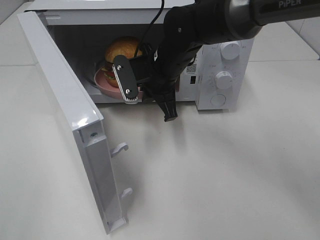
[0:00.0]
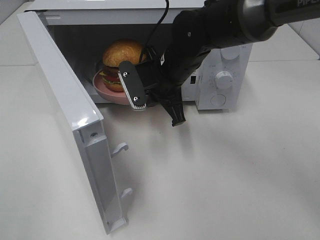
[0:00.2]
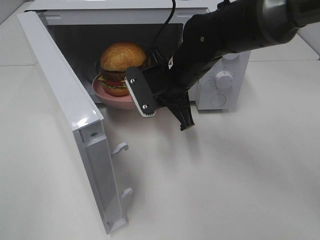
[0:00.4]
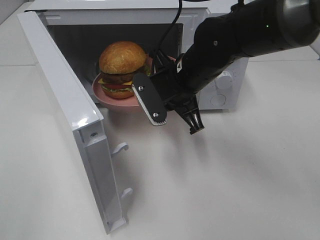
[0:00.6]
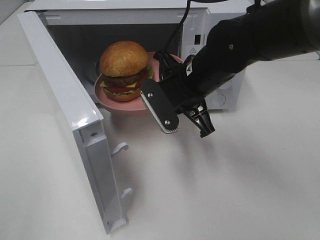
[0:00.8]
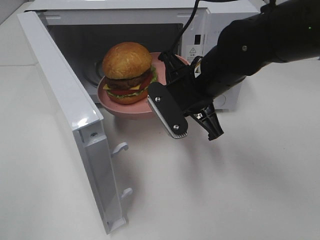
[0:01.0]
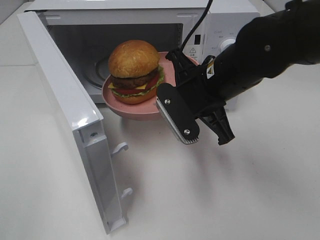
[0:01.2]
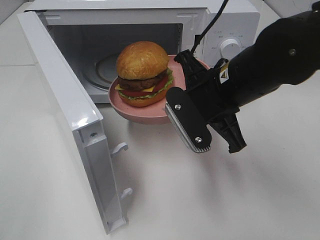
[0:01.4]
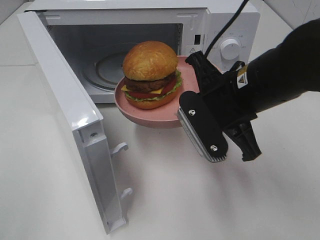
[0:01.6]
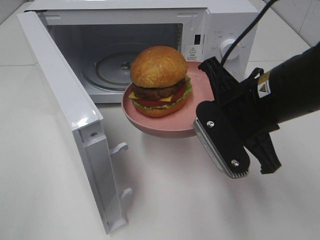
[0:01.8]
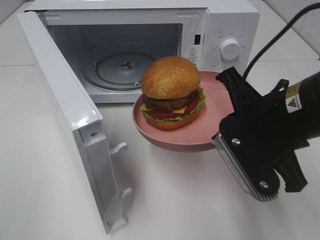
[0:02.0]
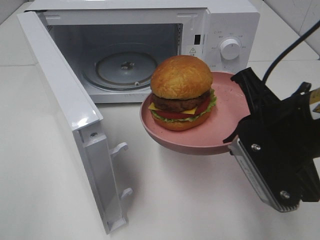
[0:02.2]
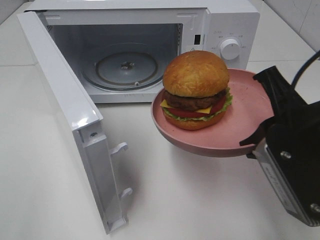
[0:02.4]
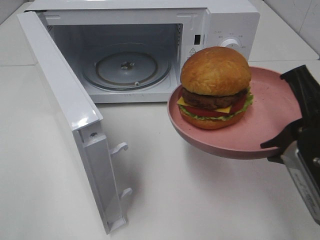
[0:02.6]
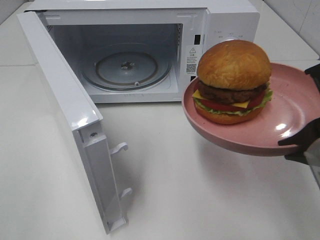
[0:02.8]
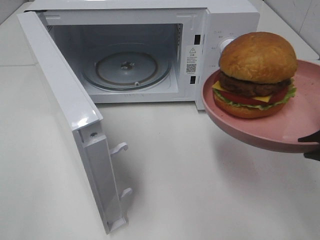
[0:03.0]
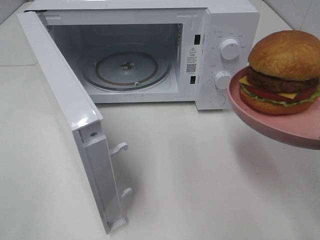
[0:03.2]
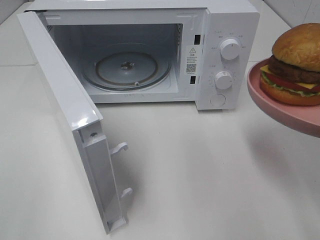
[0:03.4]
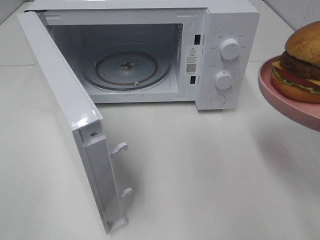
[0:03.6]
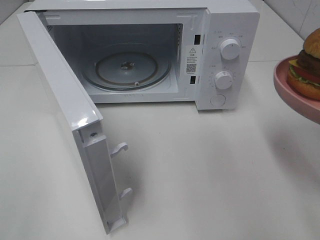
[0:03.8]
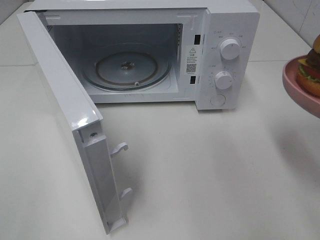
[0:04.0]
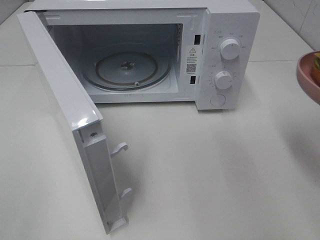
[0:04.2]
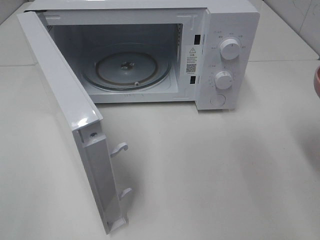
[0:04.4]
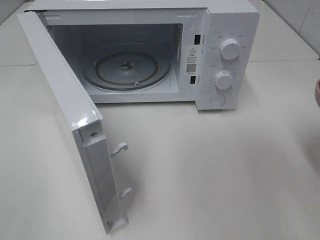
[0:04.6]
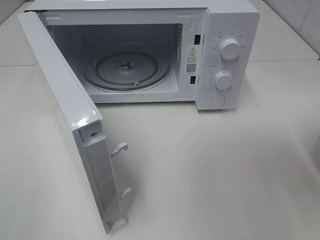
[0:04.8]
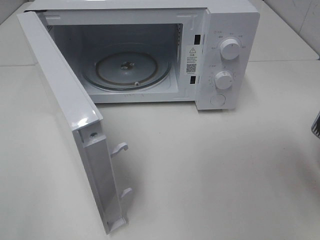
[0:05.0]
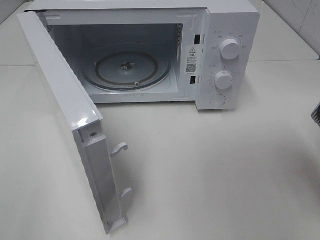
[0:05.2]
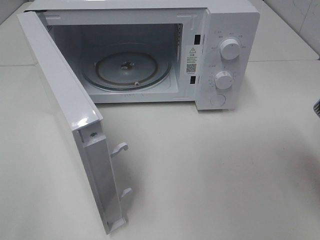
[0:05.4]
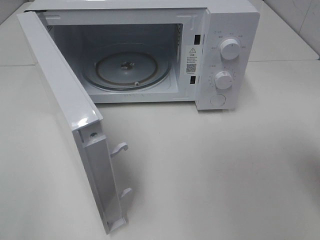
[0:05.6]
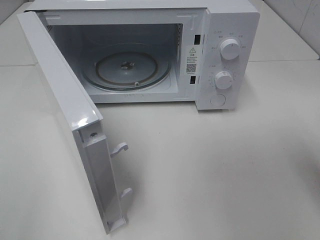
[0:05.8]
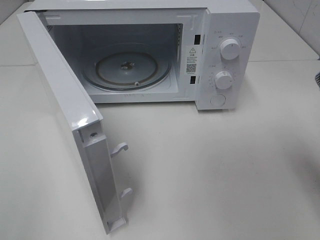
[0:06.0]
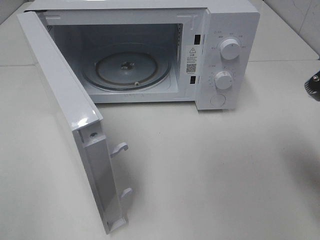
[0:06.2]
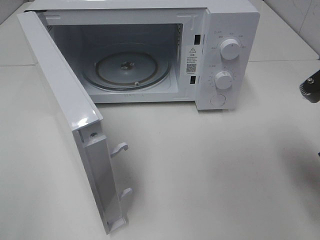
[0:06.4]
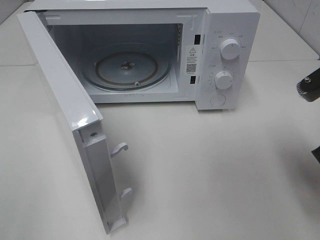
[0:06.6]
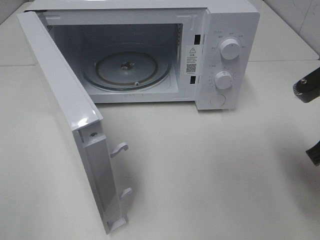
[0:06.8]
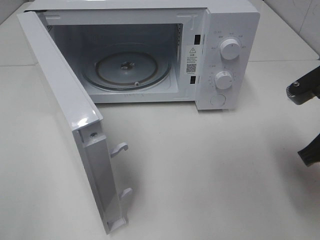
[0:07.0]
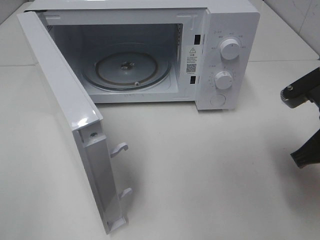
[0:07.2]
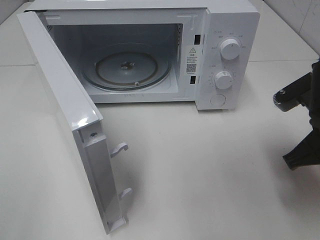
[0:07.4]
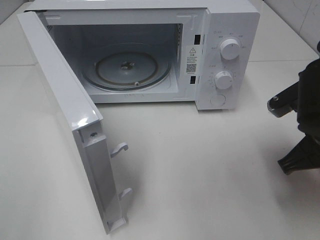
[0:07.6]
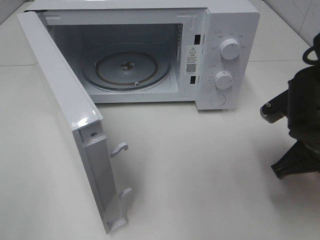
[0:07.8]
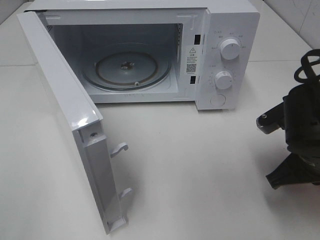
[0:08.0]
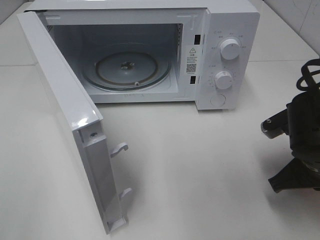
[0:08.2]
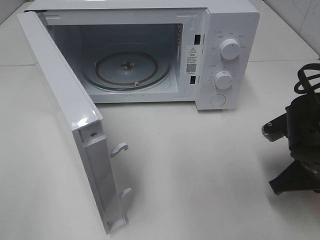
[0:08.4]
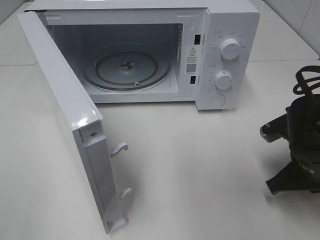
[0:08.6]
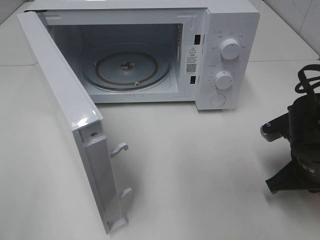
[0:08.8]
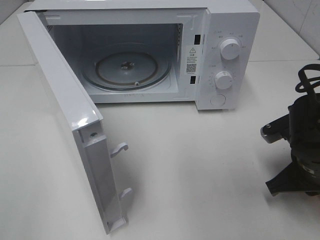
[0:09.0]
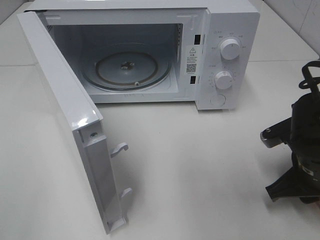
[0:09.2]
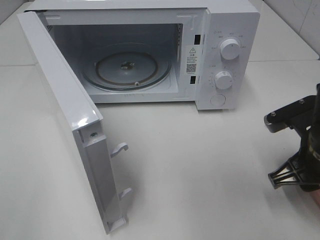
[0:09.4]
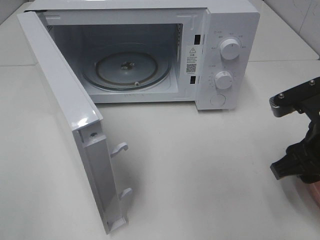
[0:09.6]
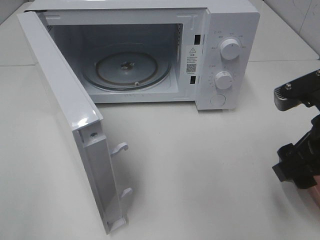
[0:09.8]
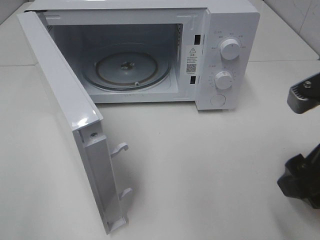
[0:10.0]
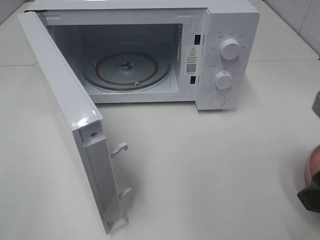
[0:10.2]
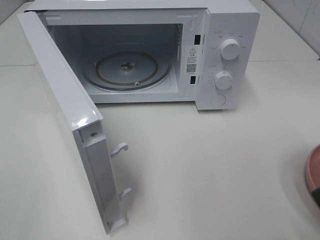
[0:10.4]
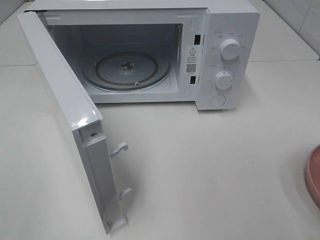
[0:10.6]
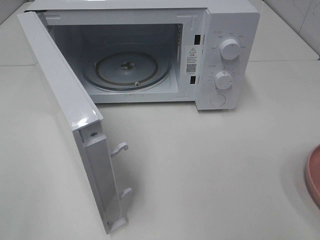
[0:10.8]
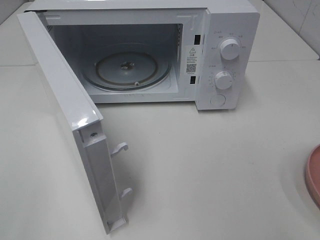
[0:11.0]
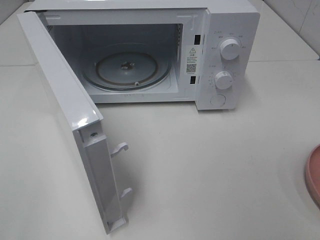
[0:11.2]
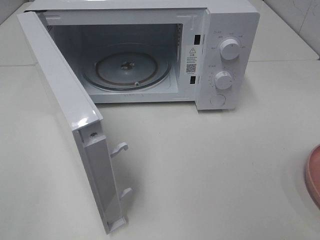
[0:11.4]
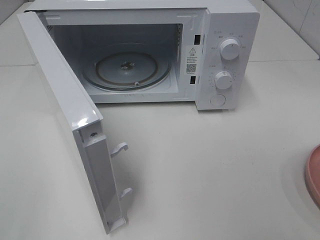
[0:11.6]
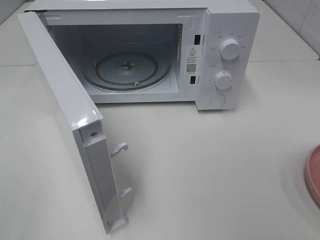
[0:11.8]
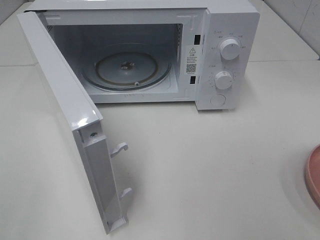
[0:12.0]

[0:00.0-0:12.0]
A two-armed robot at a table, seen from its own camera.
Task of the whole recording: Heat the burger.
Step, 0:00.0 to 0:09.0: Right hand: place the plate on the table.
0:00.0 to 0:01.6: The right gripper shifts roughly 15 cm backward and to the right.
0:01.6 to 0:03.0: The right gripper goes approximately 15 cm backward, to the right and upward.
0:06.0 to 0:07.6: The right gripper moves downward, about 10 cm.
0:07.6 to 0:09.0: The right gripper goes roughly 5 cm downward.
0:09.0 to 0:10.4: The right gripper is displaced upward and backward by approximately 20 cm, and opens up.

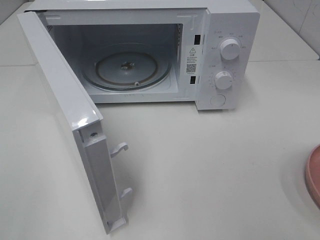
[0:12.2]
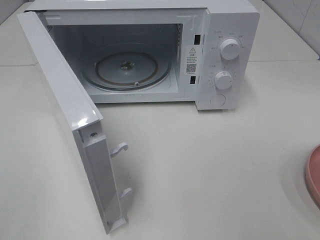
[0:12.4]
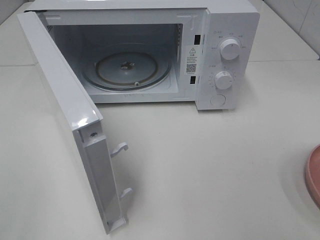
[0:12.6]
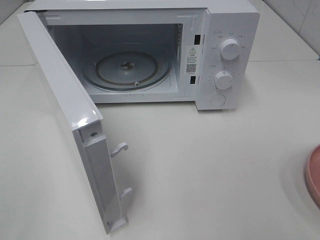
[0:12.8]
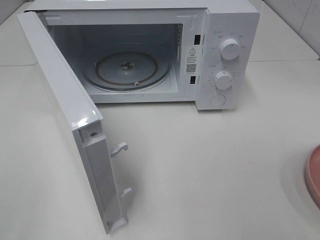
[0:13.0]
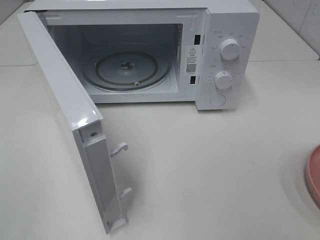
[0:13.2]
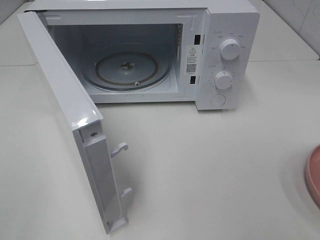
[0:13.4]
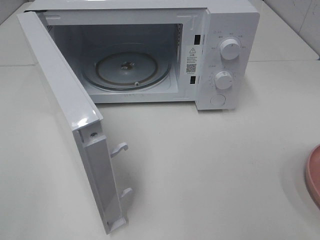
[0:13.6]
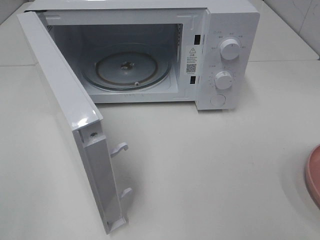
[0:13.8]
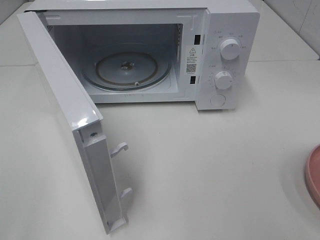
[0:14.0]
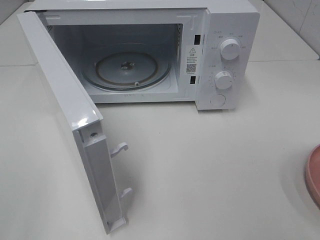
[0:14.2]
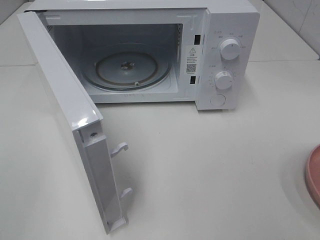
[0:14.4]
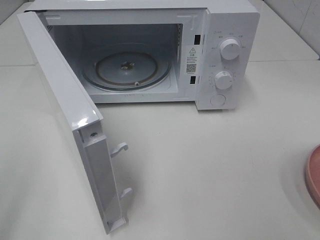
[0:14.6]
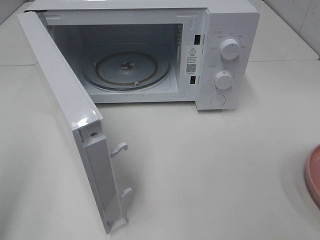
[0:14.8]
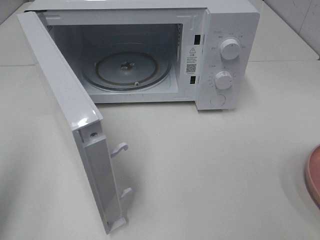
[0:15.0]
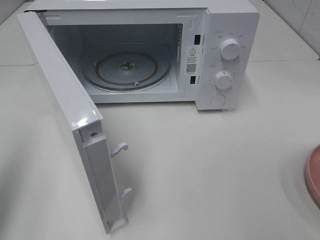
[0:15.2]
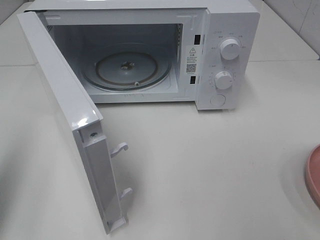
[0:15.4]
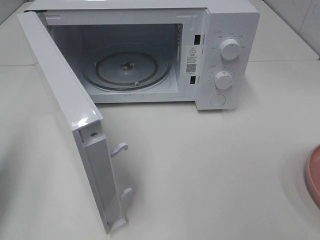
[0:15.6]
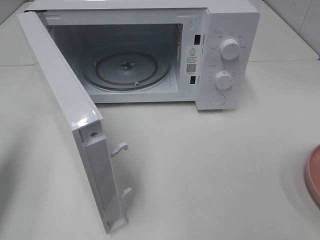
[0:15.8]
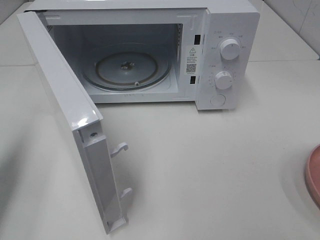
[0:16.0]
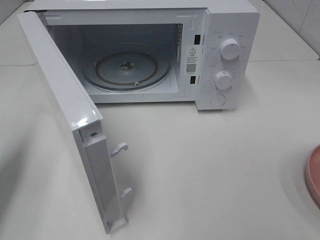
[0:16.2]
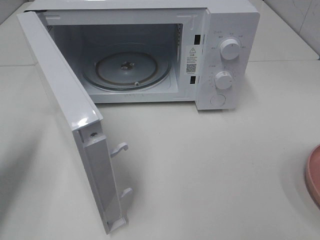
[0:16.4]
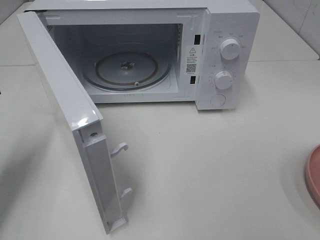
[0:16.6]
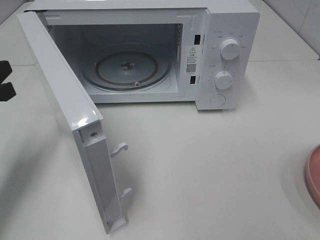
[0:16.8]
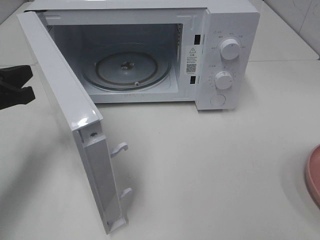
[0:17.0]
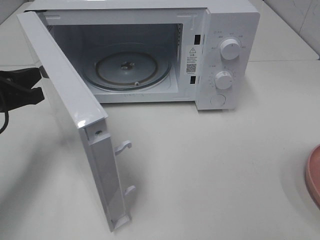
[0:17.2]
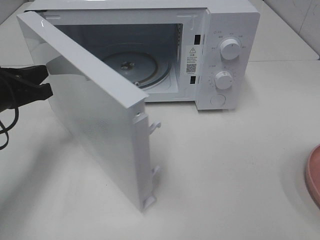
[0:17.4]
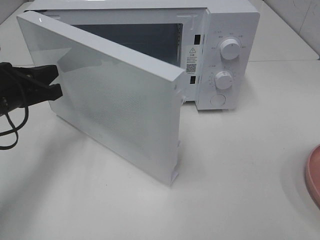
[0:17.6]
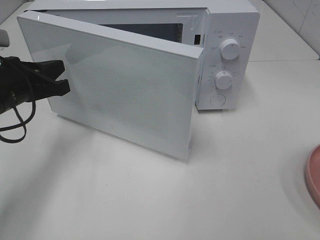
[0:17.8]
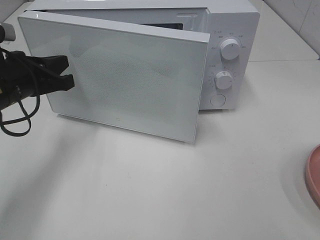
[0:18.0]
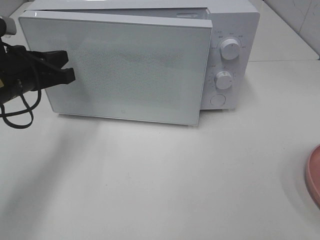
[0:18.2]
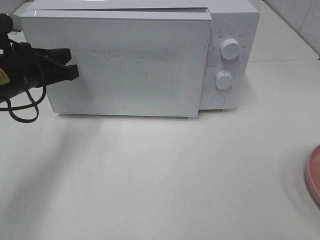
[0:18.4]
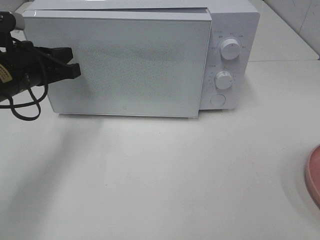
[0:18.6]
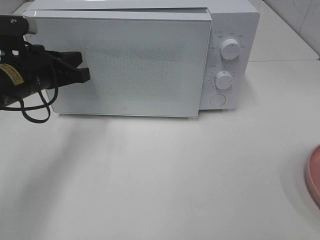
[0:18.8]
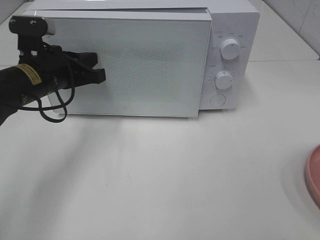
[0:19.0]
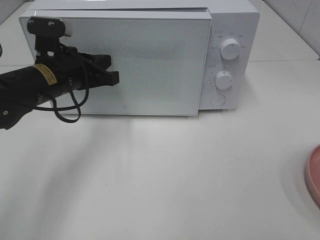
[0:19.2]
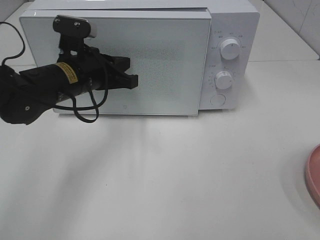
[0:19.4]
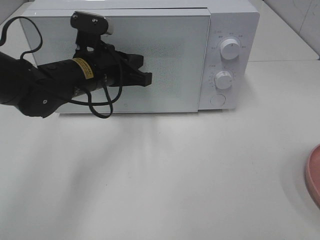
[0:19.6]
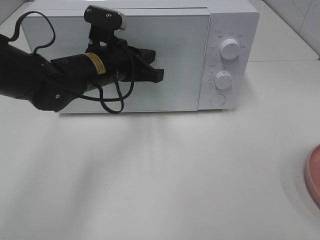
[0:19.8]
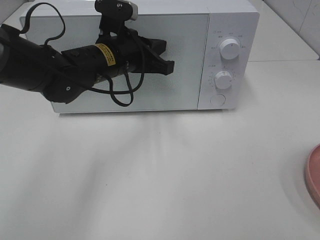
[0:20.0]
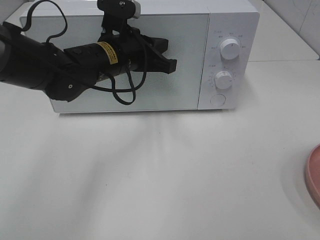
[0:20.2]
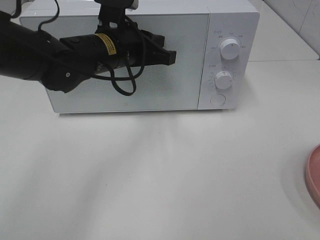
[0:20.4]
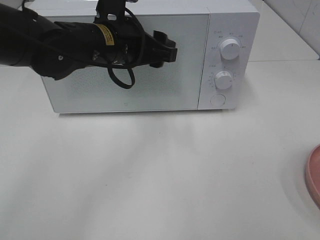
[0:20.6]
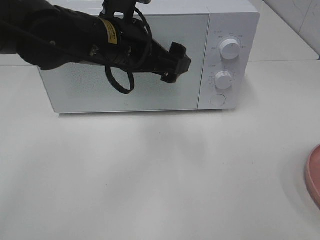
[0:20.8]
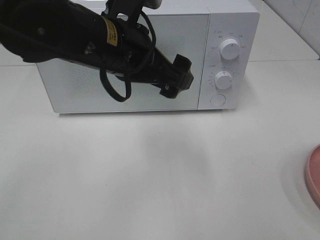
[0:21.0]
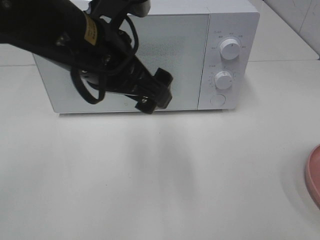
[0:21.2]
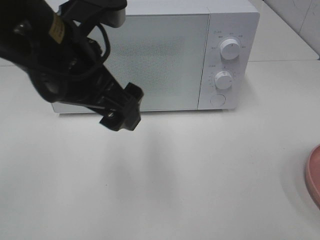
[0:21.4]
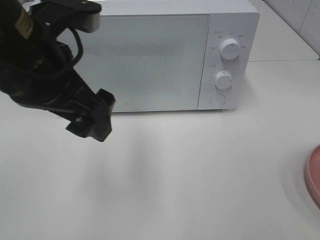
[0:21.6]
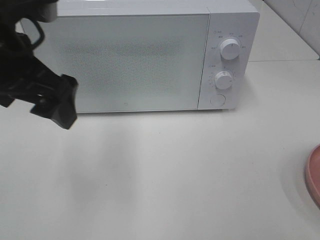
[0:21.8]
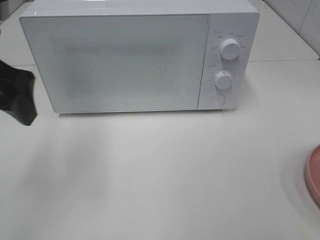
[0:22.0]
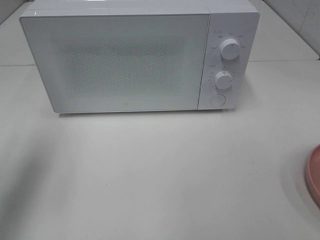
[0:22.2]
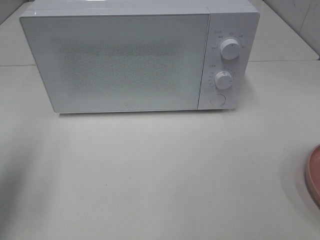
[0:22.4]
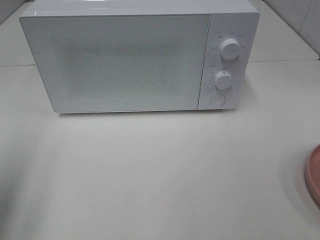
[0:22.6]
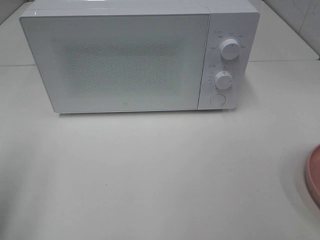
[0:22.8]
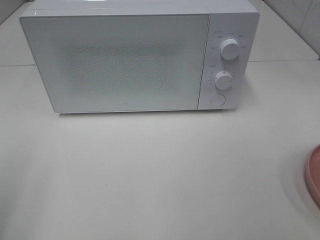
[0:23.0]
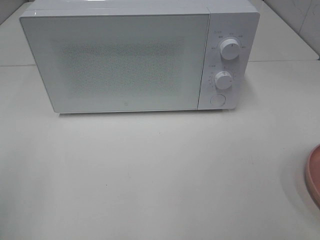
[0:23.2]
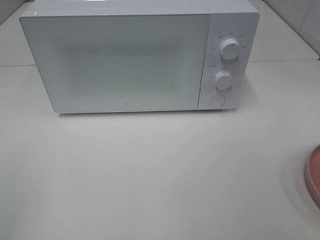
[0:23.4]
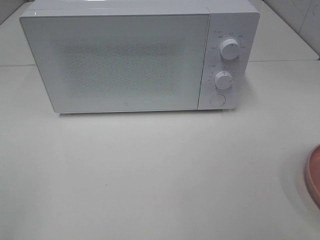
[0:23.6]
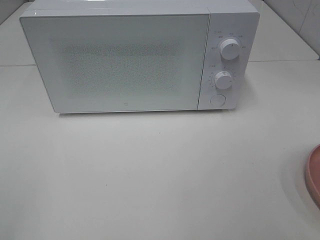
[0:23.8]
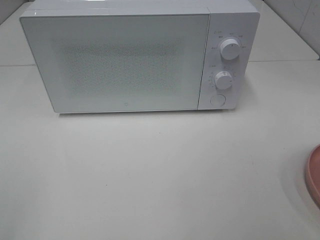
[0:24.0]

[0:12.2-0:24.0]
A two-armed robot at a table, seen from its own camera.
Task of the whole recording: Heat the burger.
Step, 0:12.2 to 0:20.4: Left hand: close the microwave door.
0:12.2 to 0:13.6: Both grippers stay put.
0:13.6 to 0:15.2: The left gripper moves forward, about 15 cm, and closes its fingers.
0:15.2 to 0:16.6: The left gripper travels downward and forward by approximately 15 cm.
0:16.6 to 0:18.2: The left gripper travels to the right and forward by approximately 10 cm.
0:18.2 to 0:19.6: The left gripper moves to the right, about 10 cm.
0:19.6 to 0:21.0: The left gripper is displaced upward, backward and to the right by approximately 15 cm, and opens up.
0:21.0 to 0:22.6: The left gripper heads to the left and backward, covering some 30 cm.
0:22.6 to 0:24.0: The left gripper is displaced backward by roughly 15 cm.
